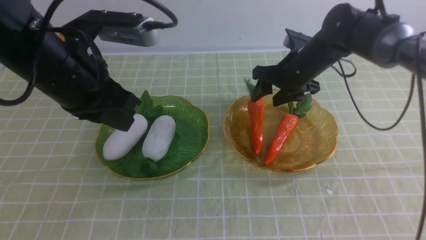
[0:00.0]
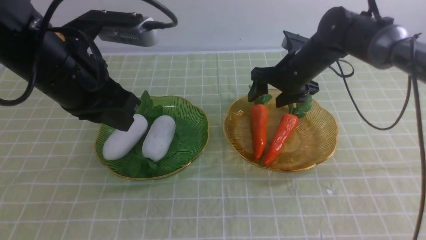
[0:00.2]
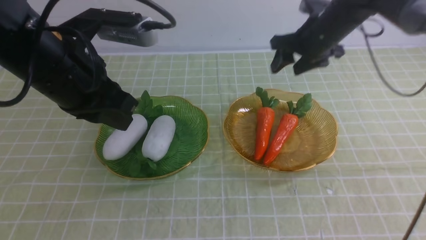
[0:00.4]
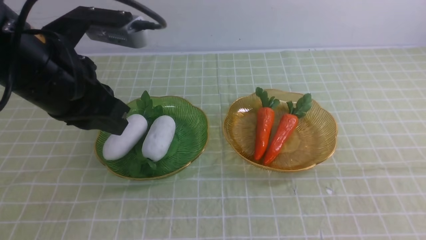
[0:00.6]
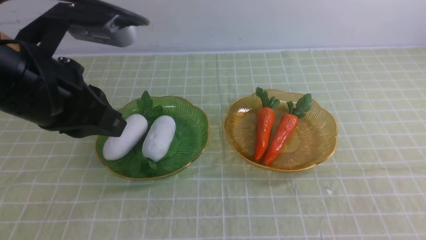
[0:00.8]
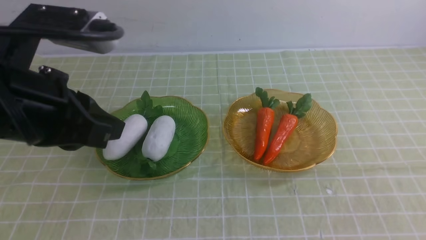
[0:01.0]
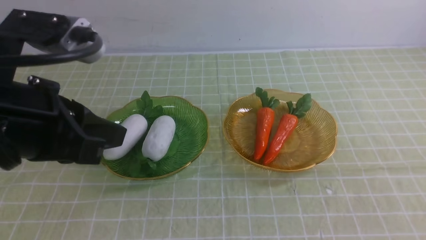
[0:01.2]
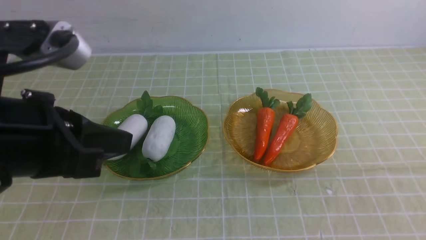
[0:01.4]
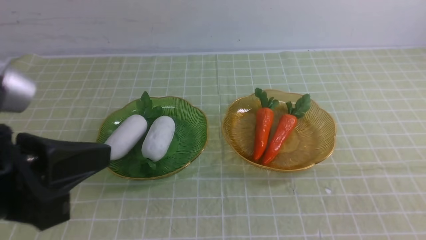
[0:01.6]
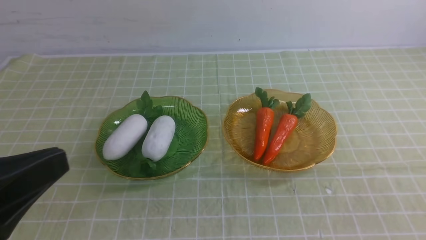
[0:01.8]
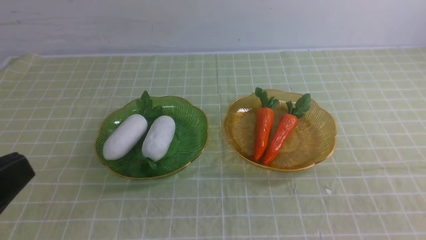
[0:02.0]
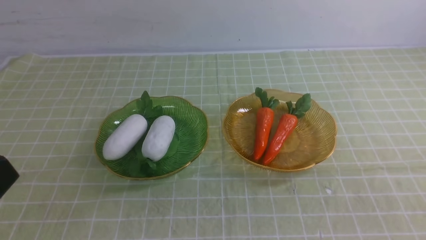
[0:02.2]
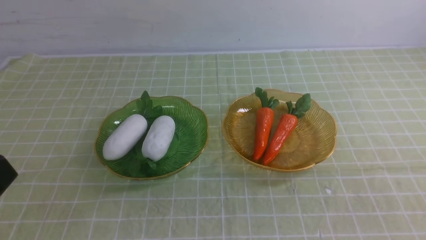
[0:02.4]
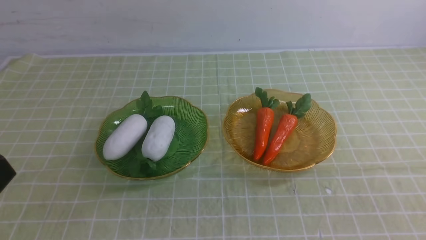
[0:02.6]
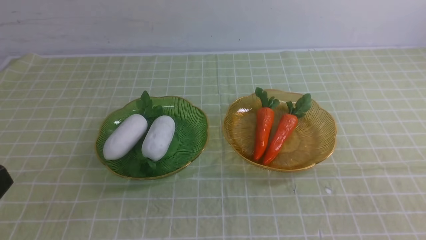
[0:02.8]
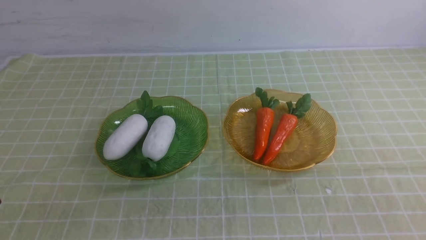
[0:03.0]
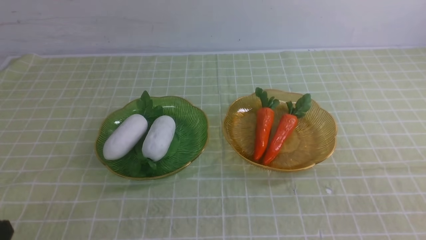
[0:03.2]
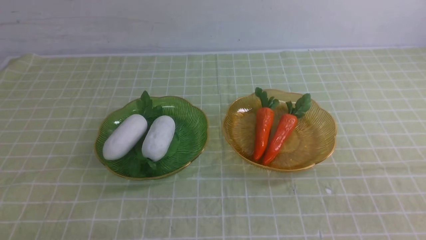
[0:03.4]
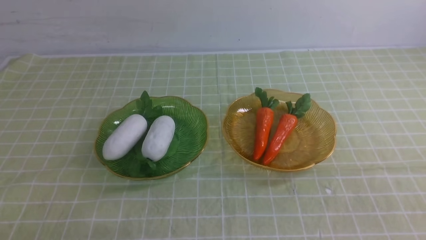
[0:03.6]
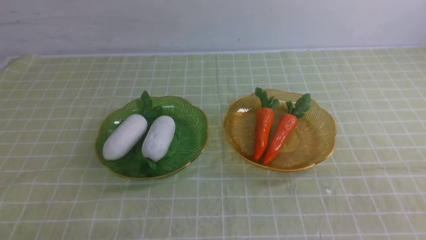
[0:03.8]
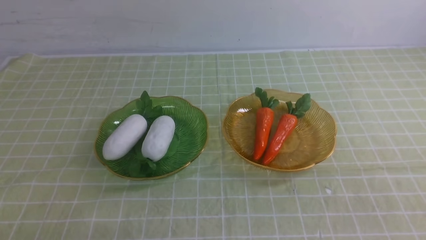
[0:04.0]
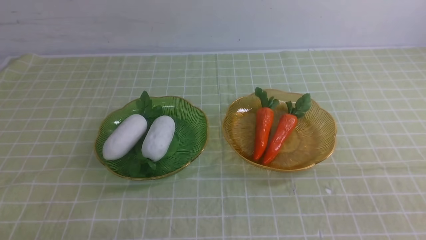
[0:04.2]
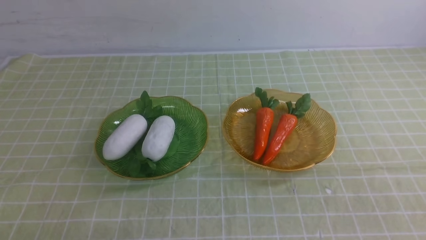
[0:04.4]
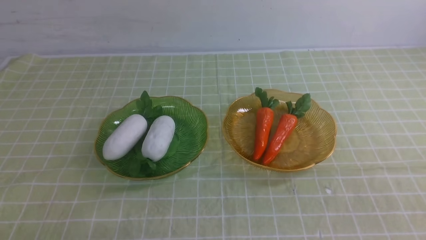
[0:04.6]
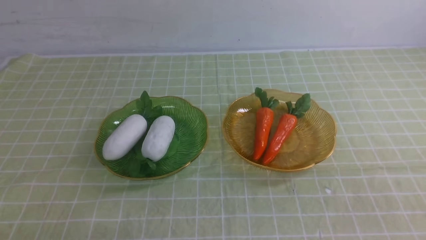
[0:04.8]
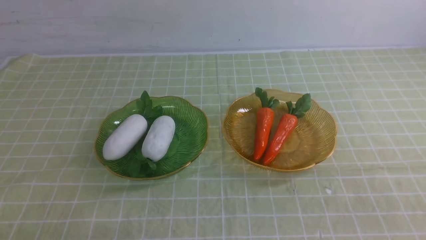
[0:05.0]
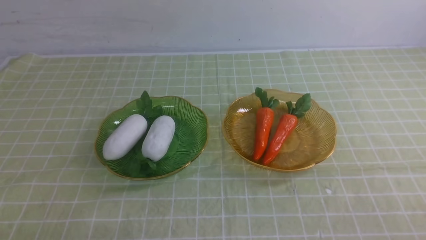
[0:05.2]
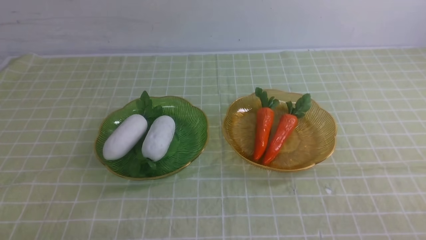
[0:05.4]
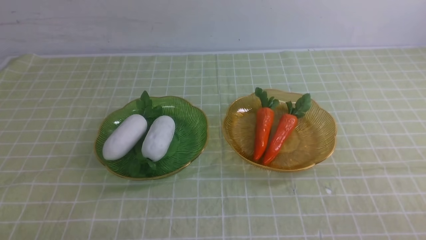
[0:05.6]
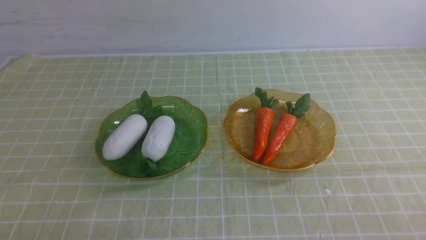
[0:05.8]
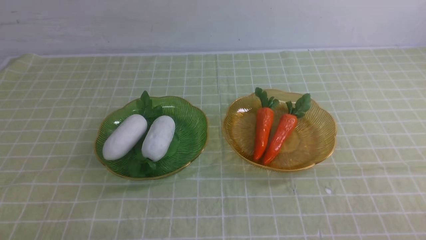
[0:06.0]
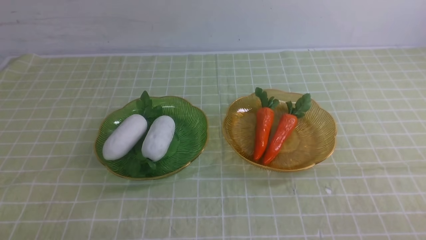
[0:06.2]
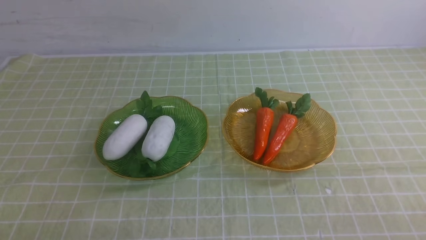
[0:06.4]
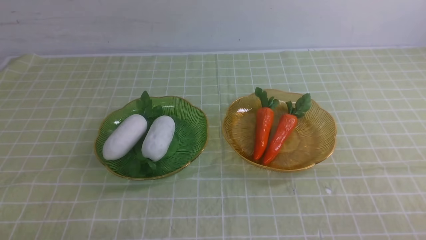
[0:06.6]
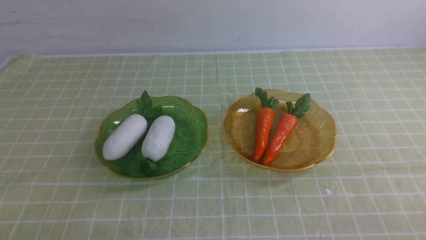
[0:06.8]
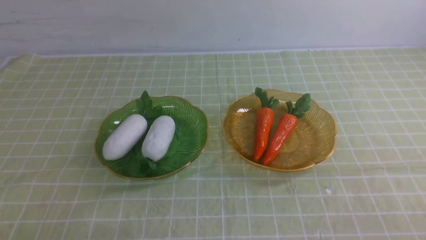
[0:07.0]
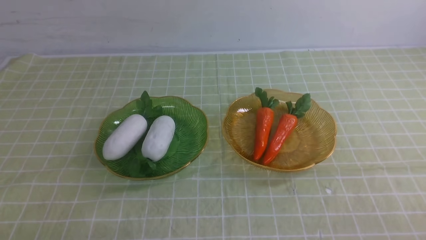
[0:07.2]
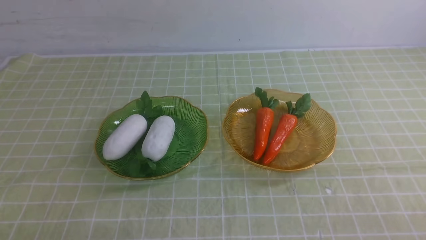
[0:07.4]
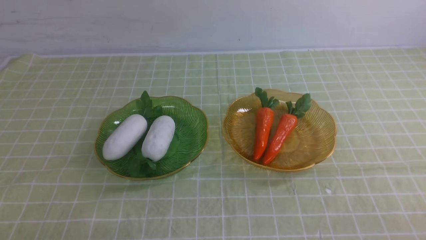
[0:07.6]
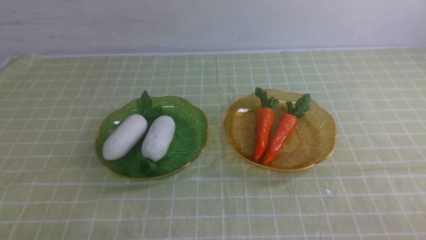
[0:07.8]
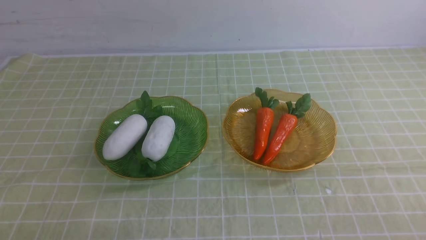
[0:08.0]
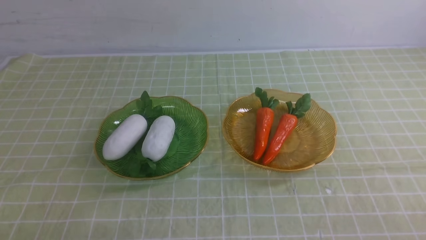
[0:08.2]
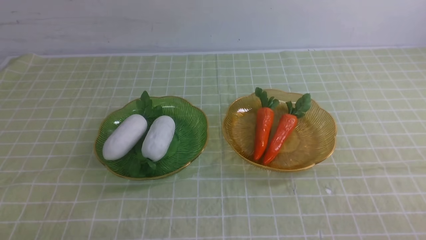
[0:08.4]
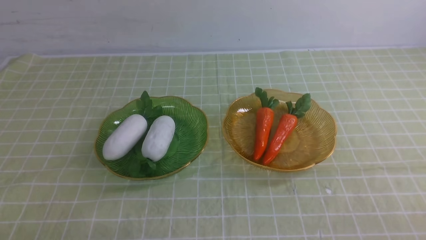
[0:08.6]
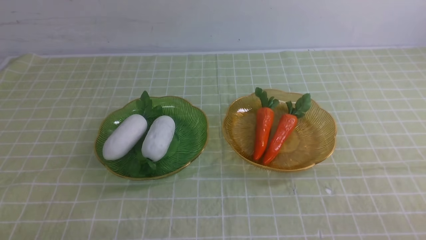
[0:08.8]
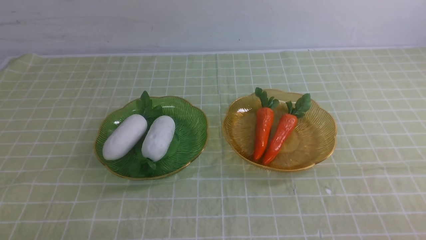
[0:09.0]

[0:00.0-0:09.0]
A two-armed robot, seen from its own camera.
0:00.0 to 0:01.6: The left gripper heads backward, covering about 15 cm. Meanwhile the right gripper moves backward, approximately 50 cm, and closes its fingers.
0:01.6 to 0:03.0: The left gripper travels backward and downward by roughly 10 cm.
0:06.0 to 0:09.0: Both grippers stay put.
